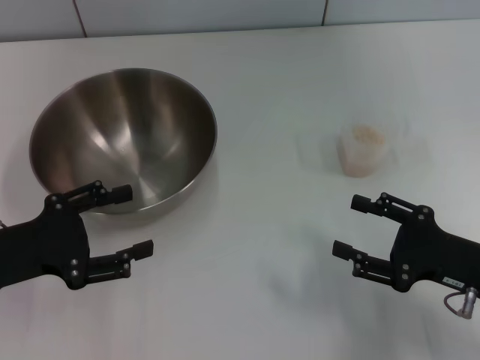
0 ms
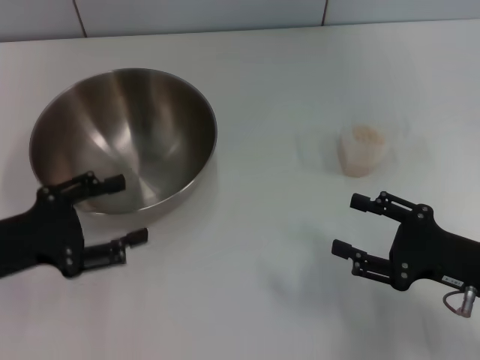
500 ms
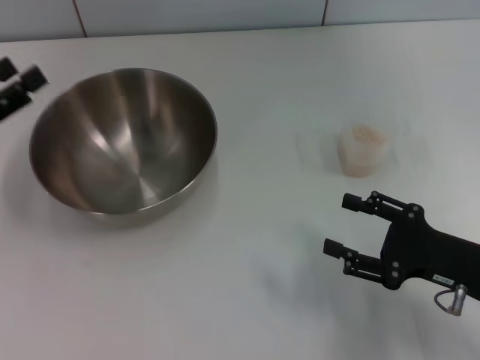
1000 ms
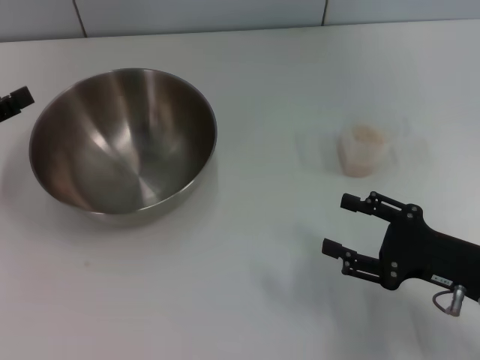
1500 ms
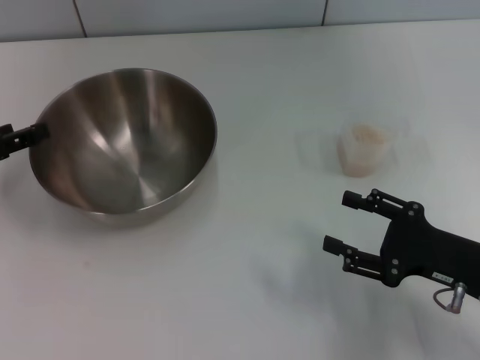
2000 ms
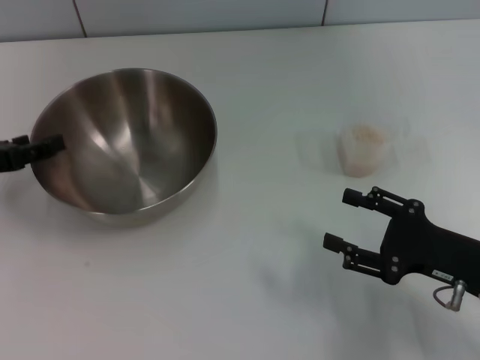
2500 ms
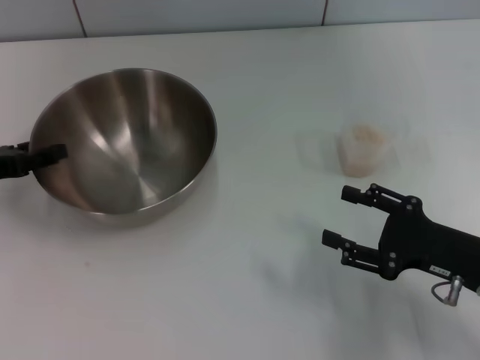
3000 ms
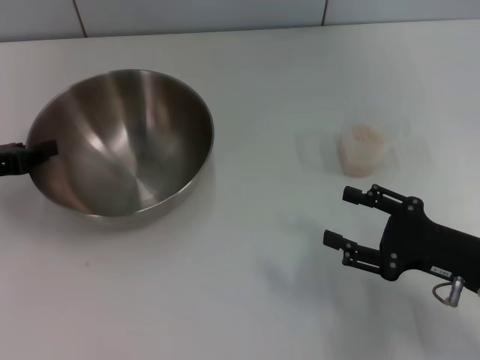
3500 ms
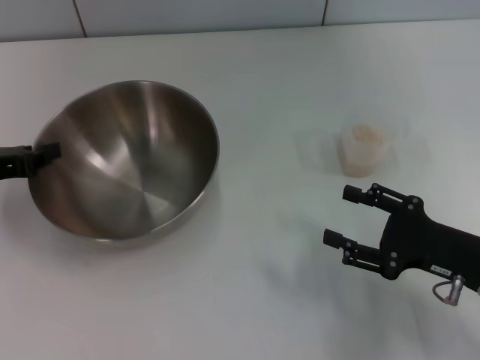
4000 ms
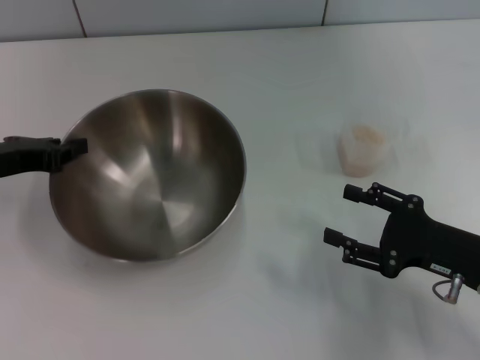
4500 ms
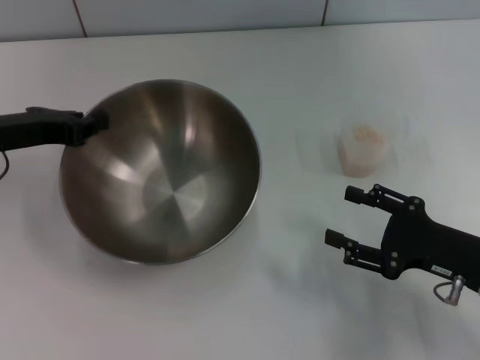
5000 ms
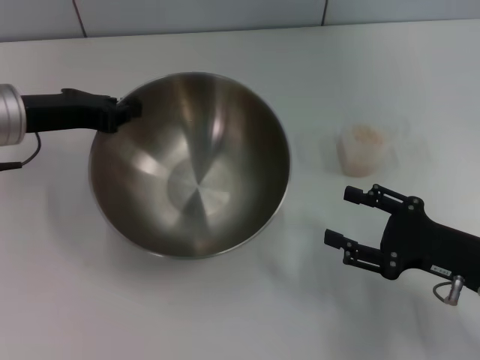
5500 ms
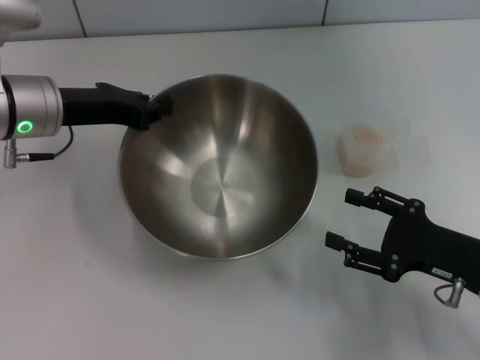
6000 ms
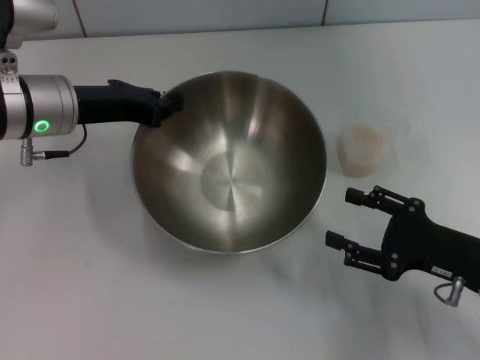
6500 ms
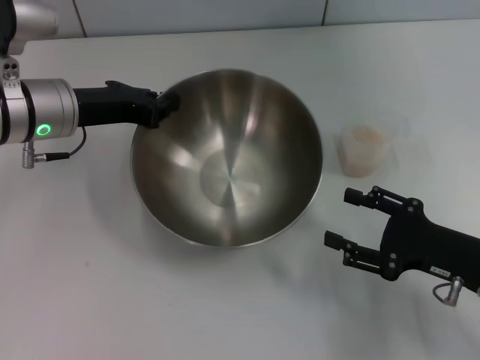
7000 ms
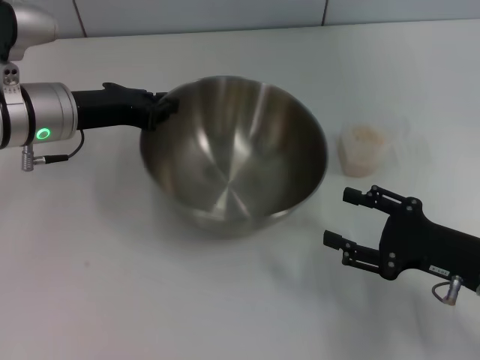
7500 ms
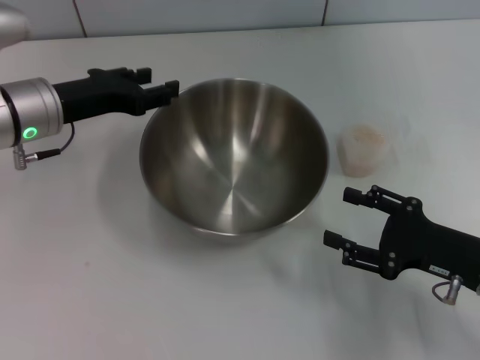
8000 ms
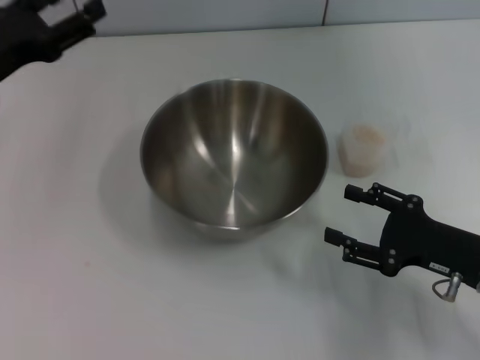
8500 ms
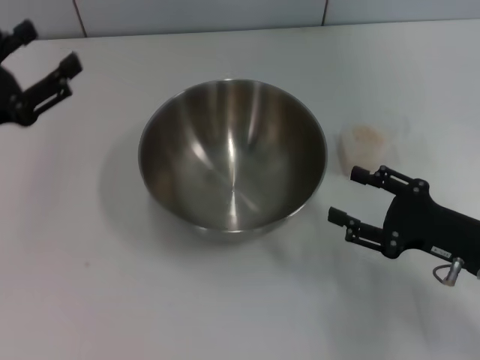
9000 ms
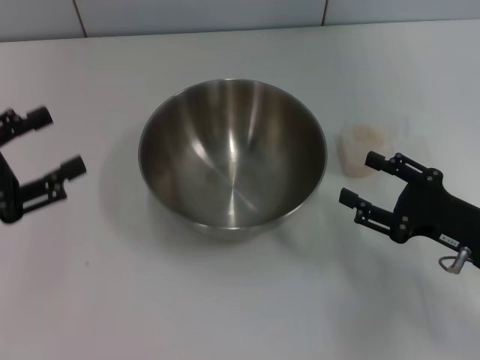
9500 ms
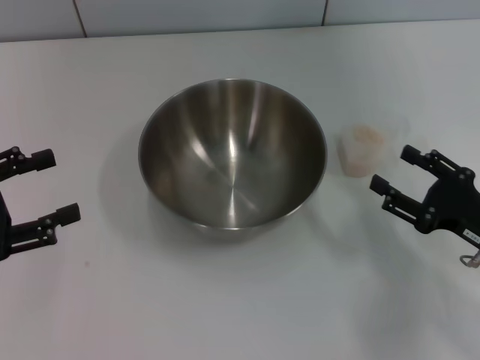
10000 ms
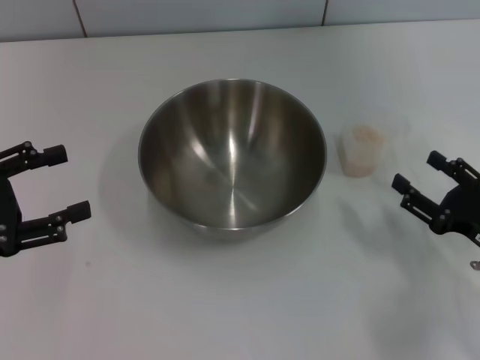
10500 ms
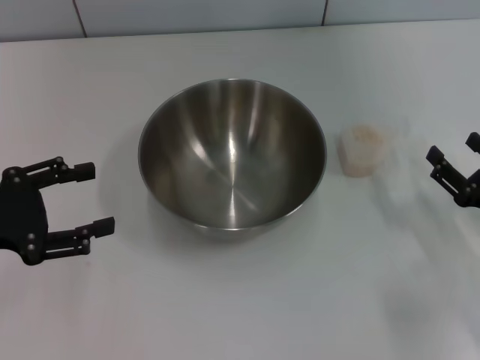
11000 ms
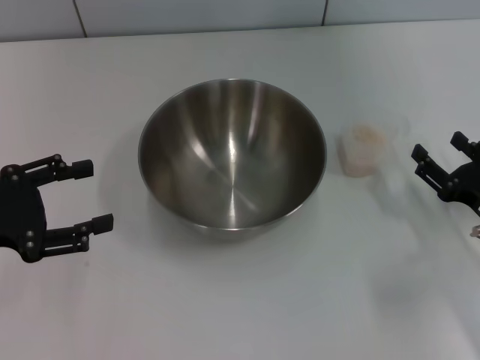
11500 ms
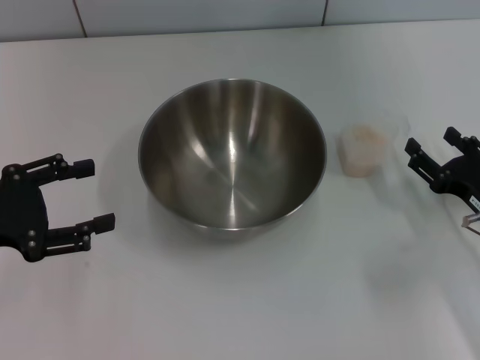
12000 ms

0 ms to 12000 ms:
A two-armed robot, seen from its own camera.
Task of the whole recording: Place the bowl in the middle of the table with one hand and pour the rice from the grain cup into it with the other hand.
Step, 0 ms to 5000 ms: Pick up the bowl with the left gripper.
Step, 5500 ms to 8500 ms: Place the bowl in the center of view with the left gripper.
0 ms to 2000 ms: The left gripper goes approximately 10 cm forward and to the left.
2000 ms to 4000 ms: The left gripper closes its fingers.
4000 ms to 6000 ms: The left gripper is displaced to the right and forward by roughly 15 cm.
6000 ms to 8000 ms: The left gripper opens its fingers.
8000 ms to 10000 ms: The left gripper is displaced backward and to the left by some 20 cm, and opens up.

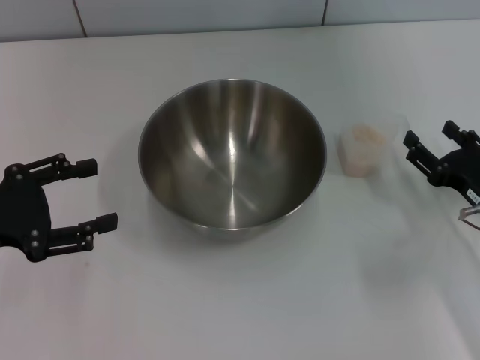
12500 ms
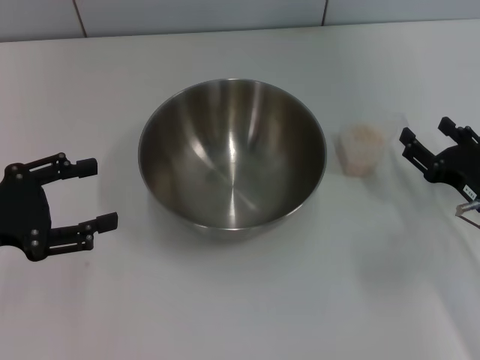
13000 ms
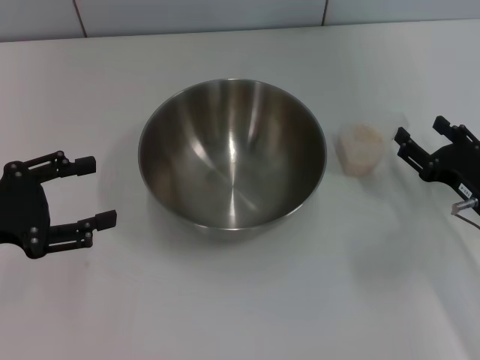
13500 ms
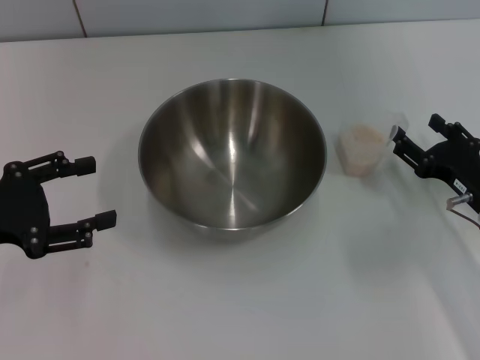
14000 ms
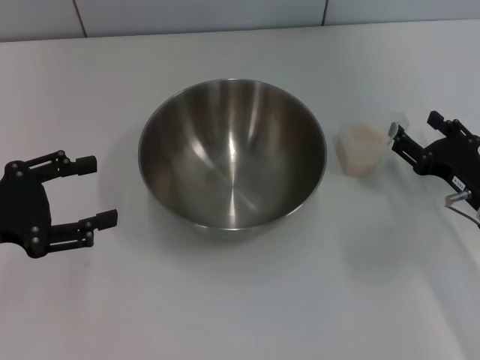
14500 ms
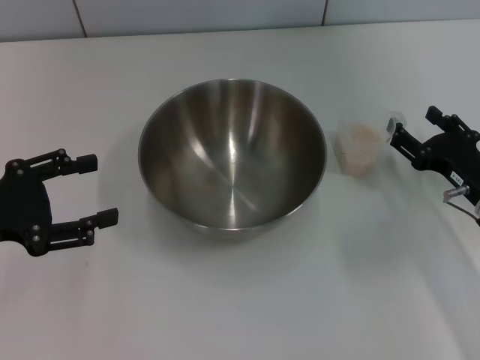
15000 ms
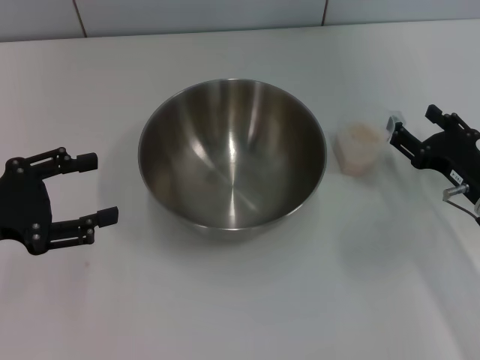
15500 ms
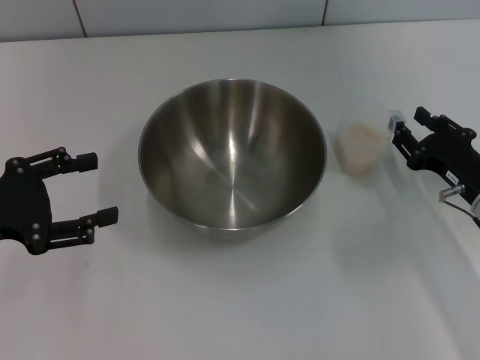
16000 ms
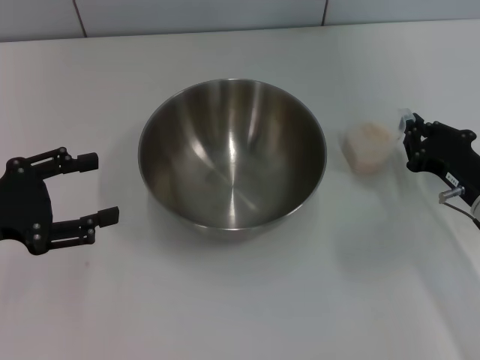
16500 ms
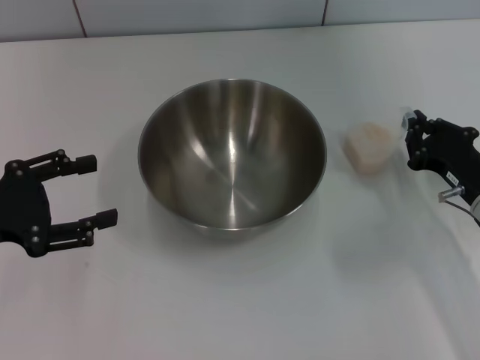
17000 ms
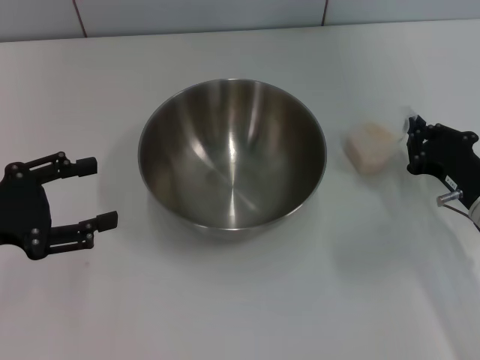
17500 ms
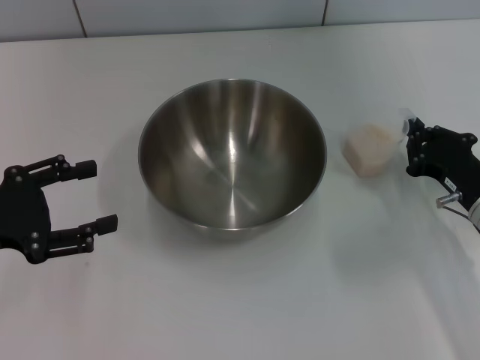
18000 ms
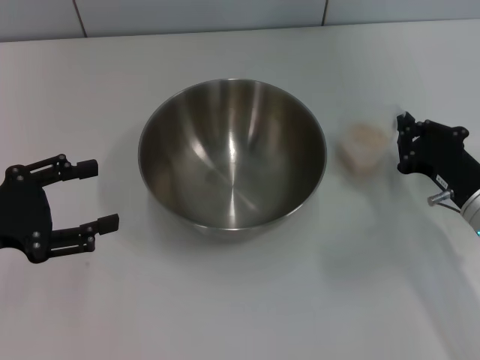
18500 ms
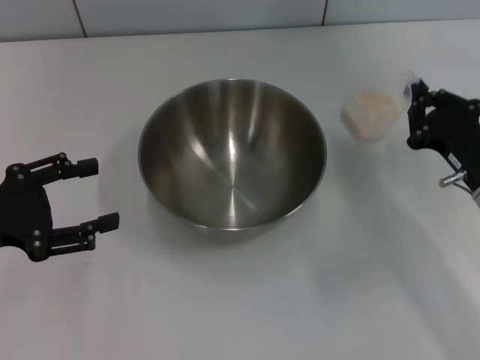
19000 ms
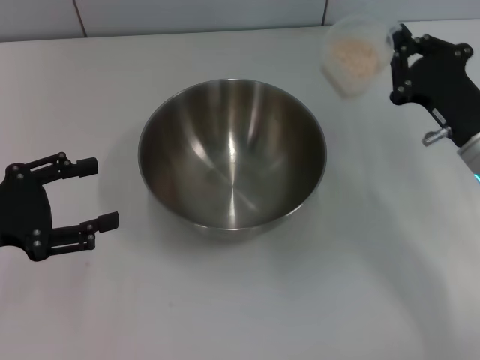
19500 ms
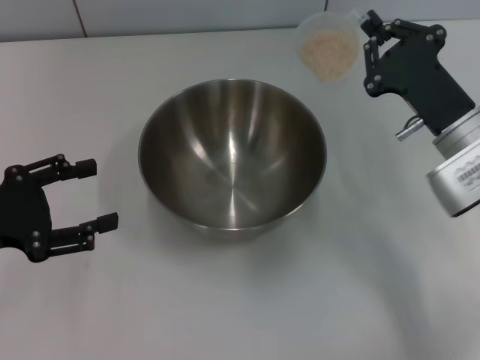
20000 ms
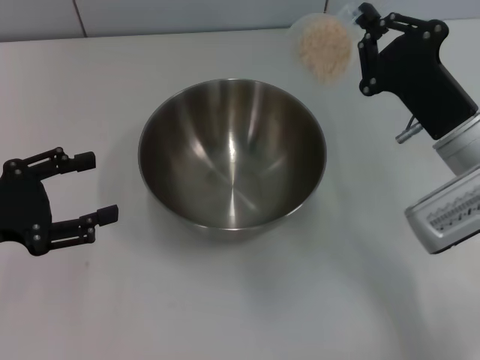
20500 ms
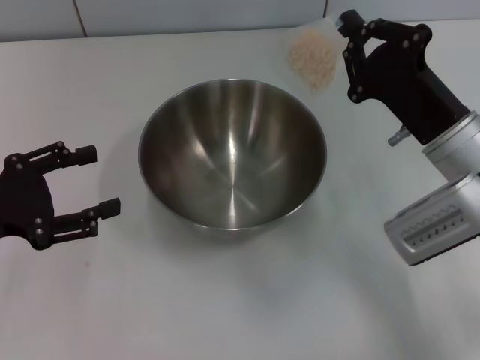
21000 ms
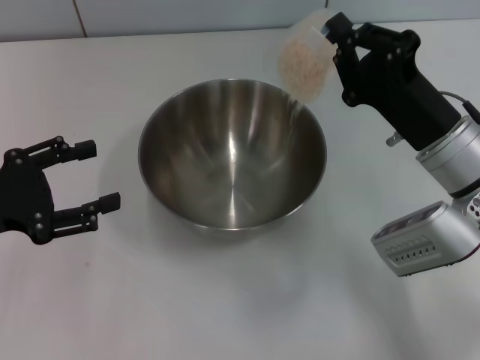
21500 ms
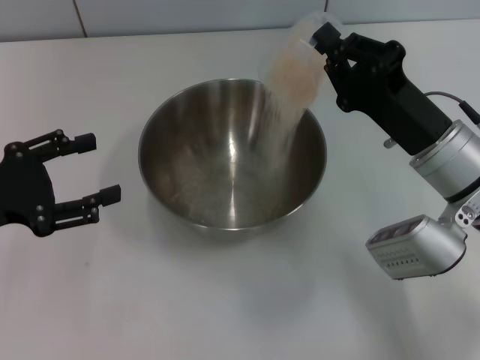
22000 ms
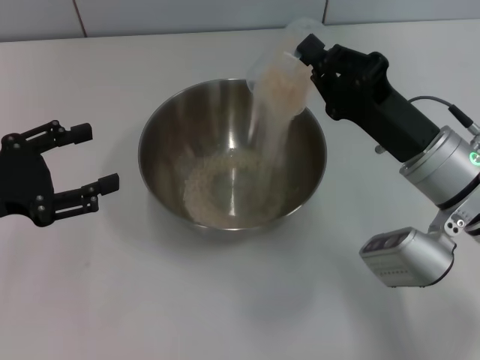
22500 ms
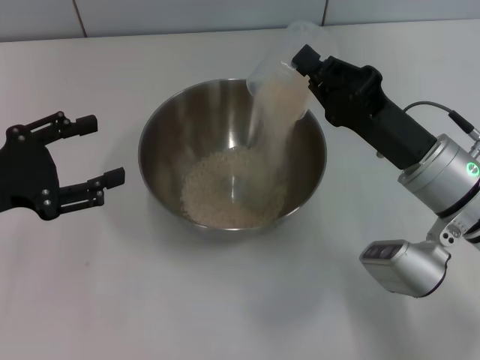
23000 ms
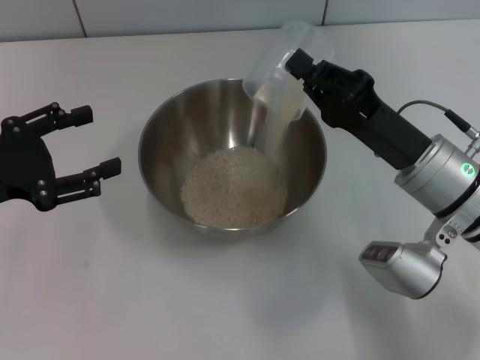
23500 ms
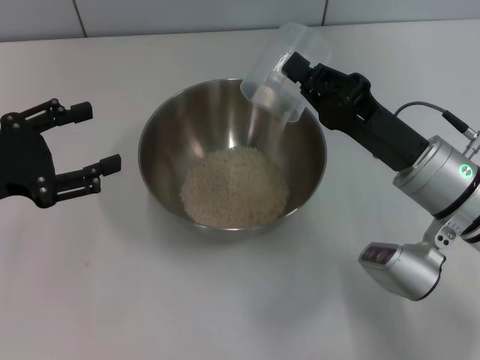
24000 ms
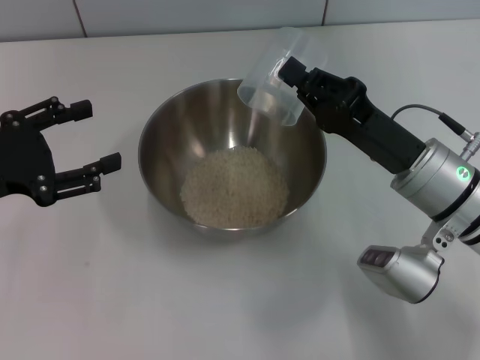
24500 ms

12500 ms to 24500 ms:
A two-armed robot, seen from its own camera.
Task of the whole recording: Place the bowl in the middle of the table with one hand and pour the rice from the grain cup into it with the other hand.
Step, 12500 ms to 19000 ms: Pick up the cup with rice in it with the right gripper.
12500 ms to 14500 ms: There are only small adjustments of the grippers.
14500 ms to 16500 ms: The right gripper closes.
16500 ms to 18500 ms: The grippers make only small movements.
18500 ms to 20500 ms: The right gripper goes roughly 5 cm upward.
22500 ms to 24500 ms: The grippers move only a little.

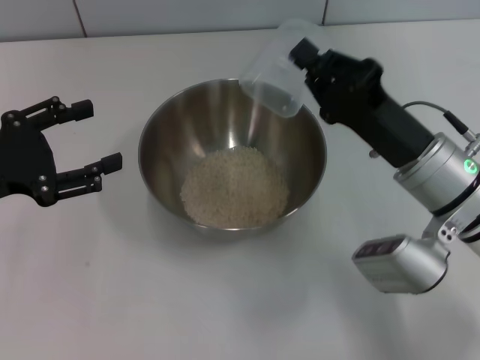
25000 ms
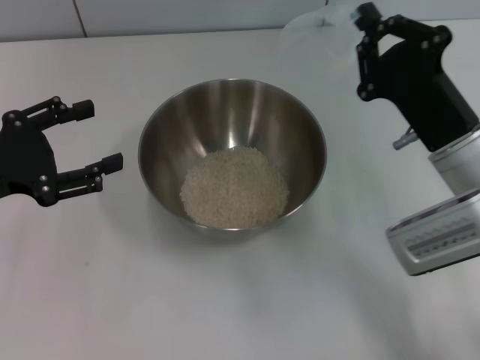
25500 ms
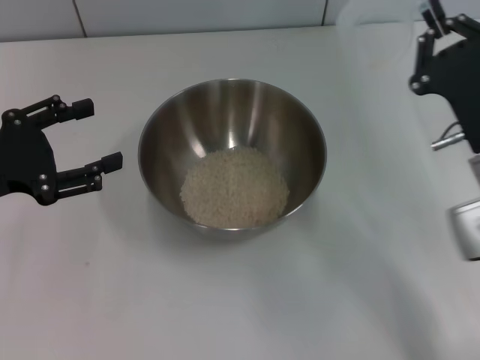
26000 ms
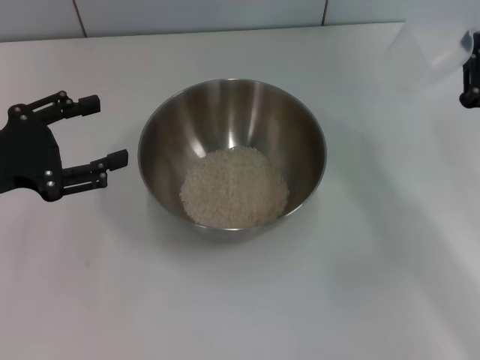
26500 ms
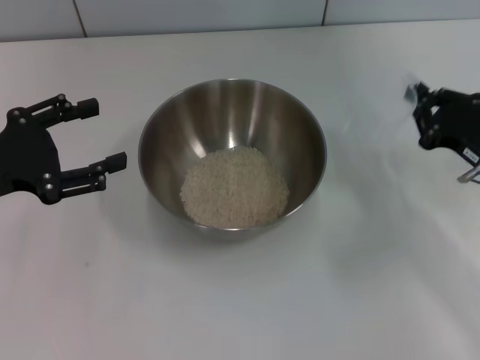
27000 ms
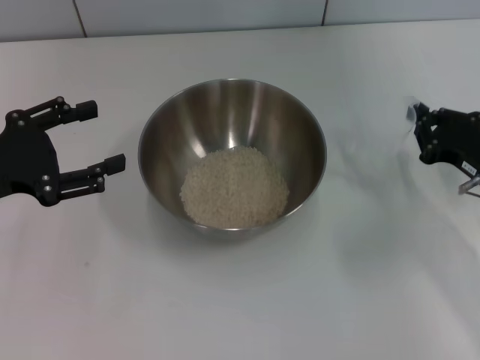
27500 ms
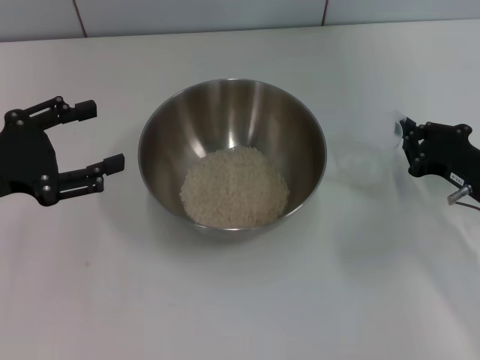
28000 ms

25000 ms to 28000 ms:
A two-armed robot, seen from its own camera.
Task of the whole recording: Place the bowl in the middle of the table with one hand and pour the rice from the grain cup into it with the other hand.
25000 ms to 26500 ms: The right gripper heads to the right, covering some 10 cm.
